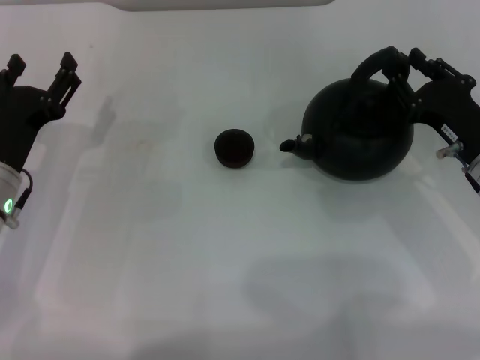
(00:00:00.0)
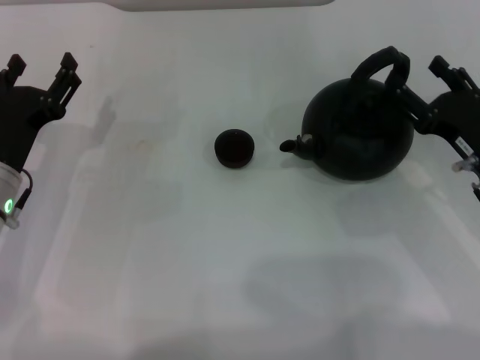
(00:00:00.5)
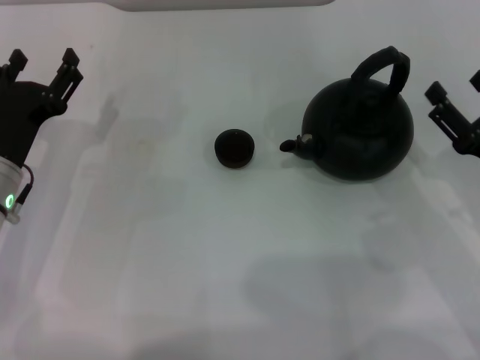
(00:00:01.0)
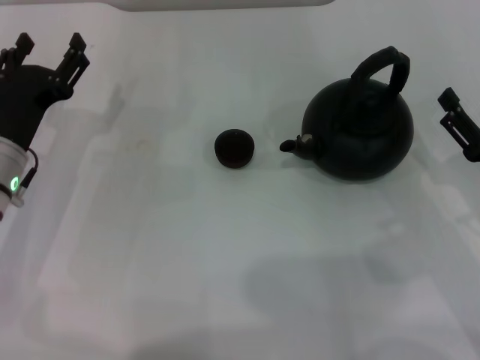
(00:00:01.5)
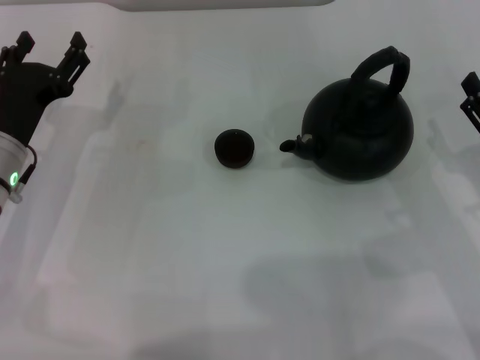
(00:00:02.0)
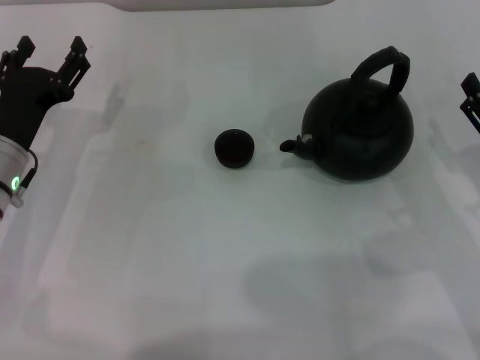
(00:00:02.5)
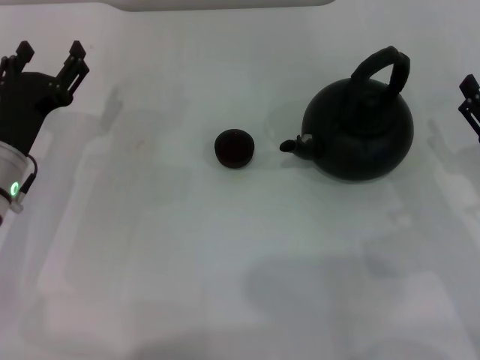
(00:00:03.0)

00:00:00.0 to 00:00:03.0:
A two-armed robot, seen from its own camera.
Task of the whole recording: Grasp the handle of the teapot with one hand and pour tea into the teacup.
00:00:00.0 to 00:00:01.5: The right gripper shifts about 5 cm backward, and opens up.
00:00:01.5 to 00:00:03.0: The grippers move only a little.
